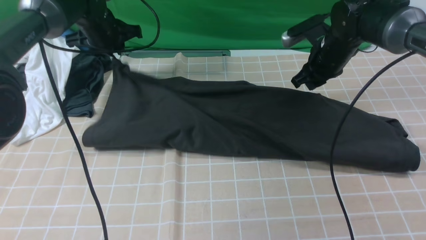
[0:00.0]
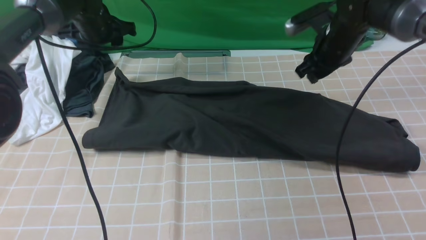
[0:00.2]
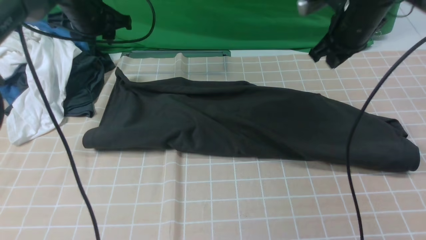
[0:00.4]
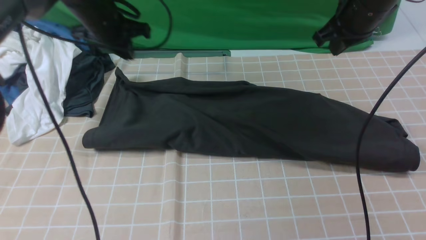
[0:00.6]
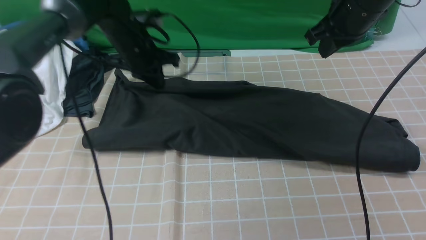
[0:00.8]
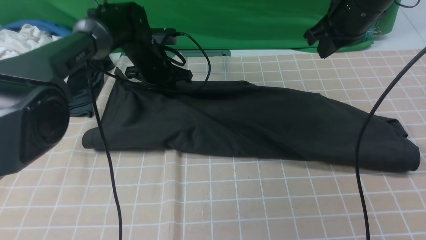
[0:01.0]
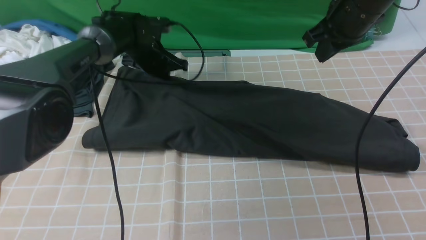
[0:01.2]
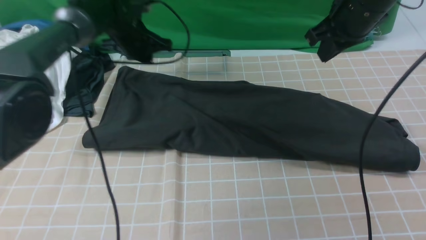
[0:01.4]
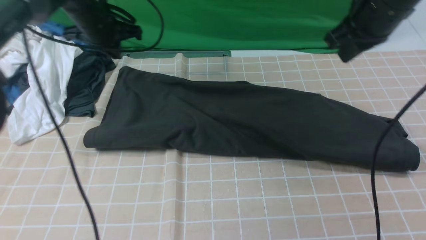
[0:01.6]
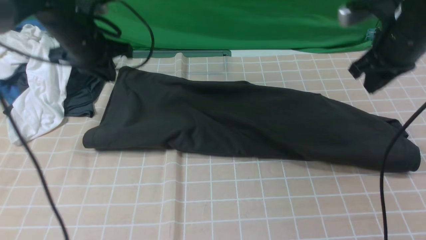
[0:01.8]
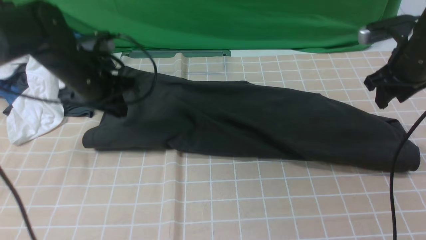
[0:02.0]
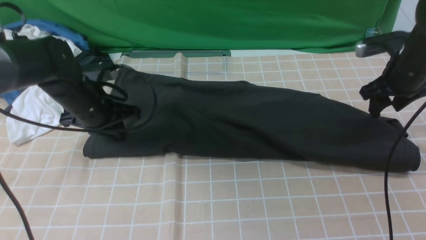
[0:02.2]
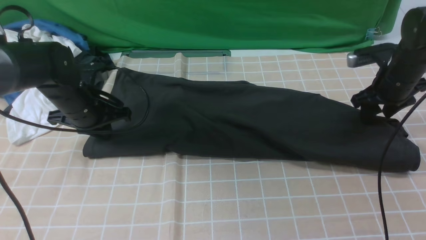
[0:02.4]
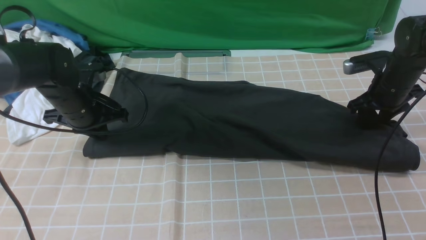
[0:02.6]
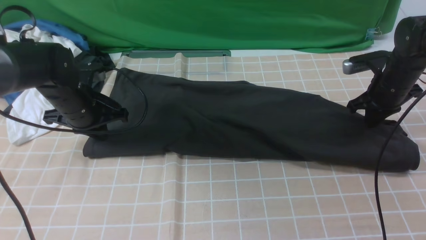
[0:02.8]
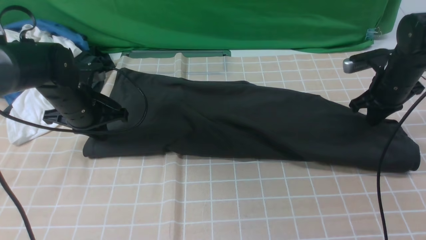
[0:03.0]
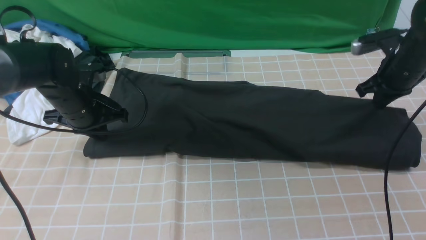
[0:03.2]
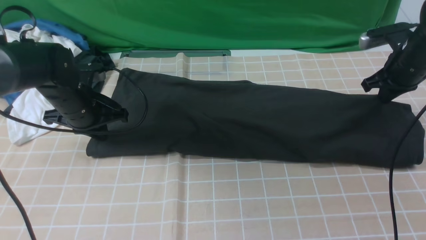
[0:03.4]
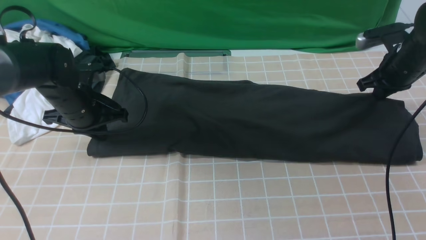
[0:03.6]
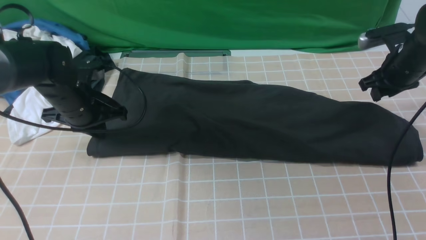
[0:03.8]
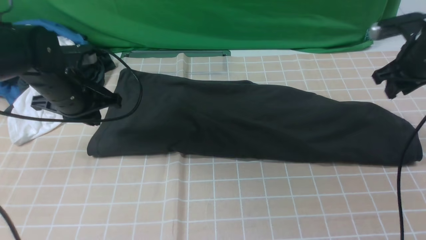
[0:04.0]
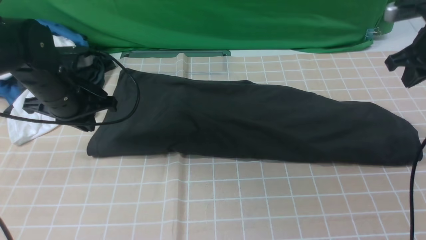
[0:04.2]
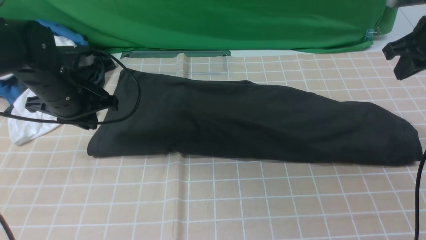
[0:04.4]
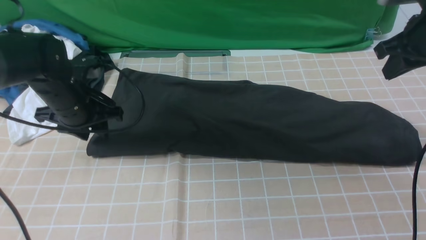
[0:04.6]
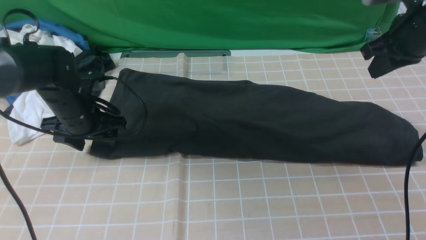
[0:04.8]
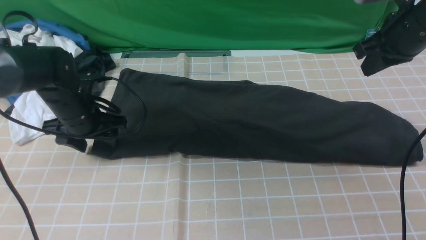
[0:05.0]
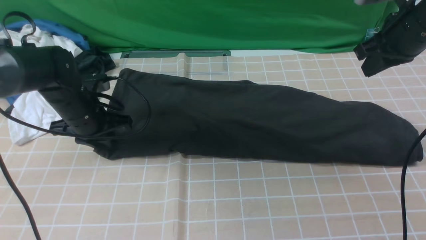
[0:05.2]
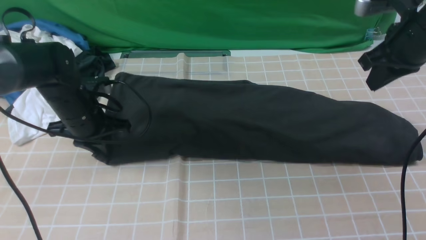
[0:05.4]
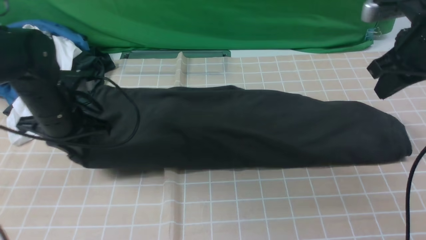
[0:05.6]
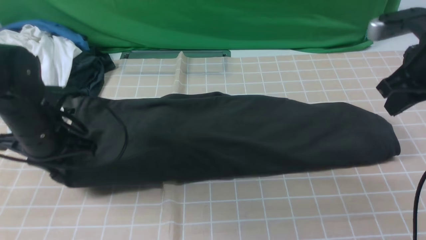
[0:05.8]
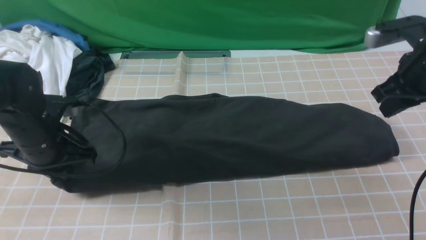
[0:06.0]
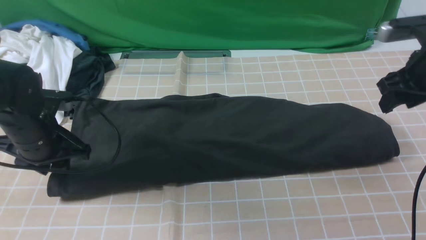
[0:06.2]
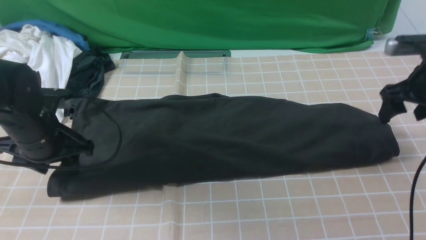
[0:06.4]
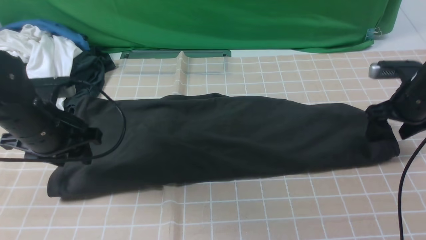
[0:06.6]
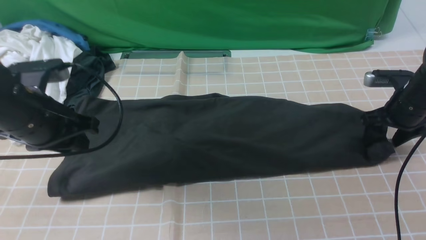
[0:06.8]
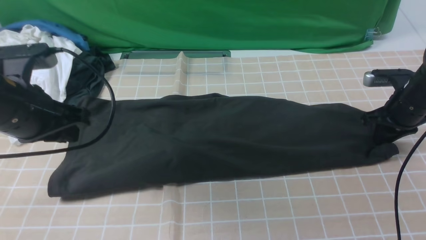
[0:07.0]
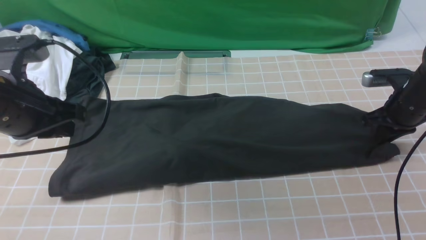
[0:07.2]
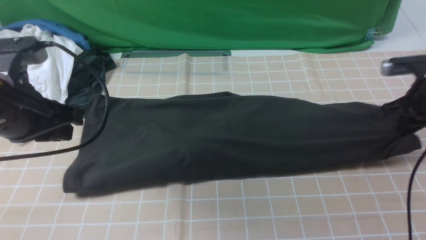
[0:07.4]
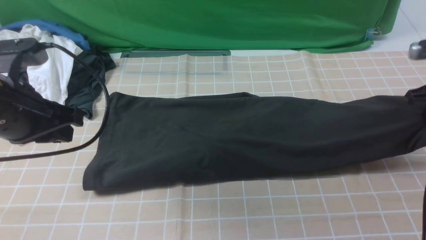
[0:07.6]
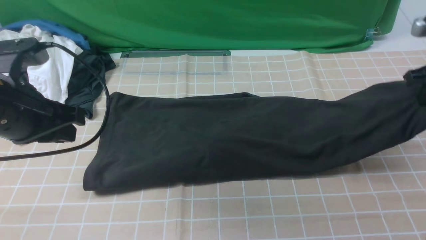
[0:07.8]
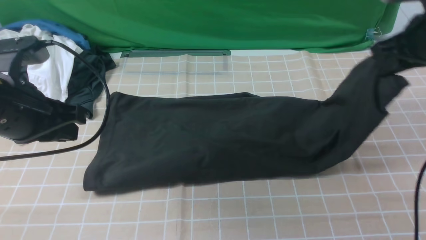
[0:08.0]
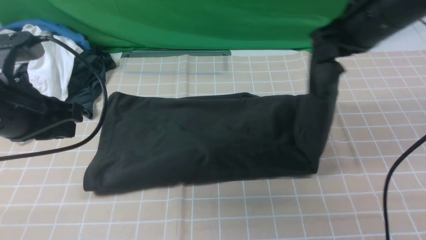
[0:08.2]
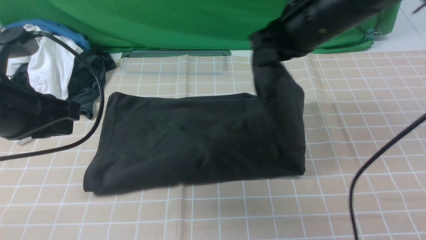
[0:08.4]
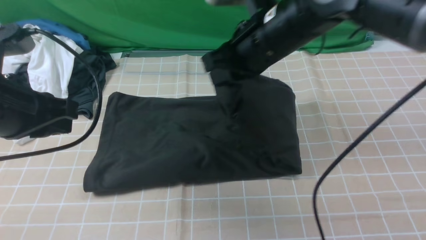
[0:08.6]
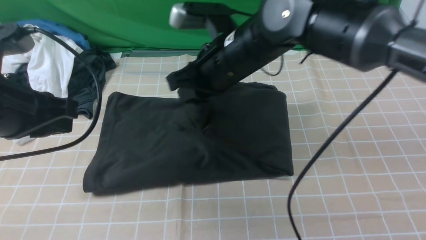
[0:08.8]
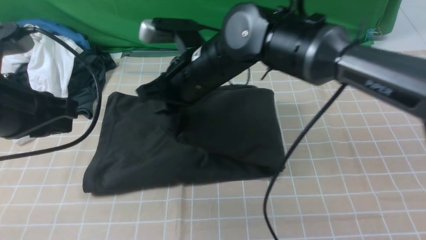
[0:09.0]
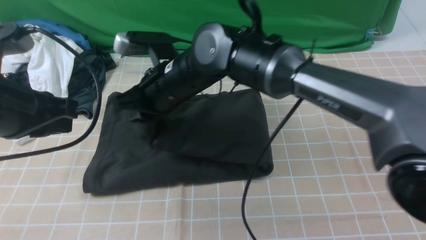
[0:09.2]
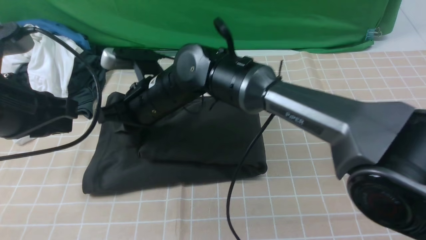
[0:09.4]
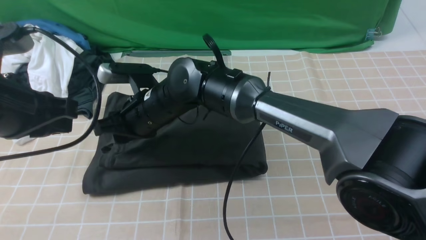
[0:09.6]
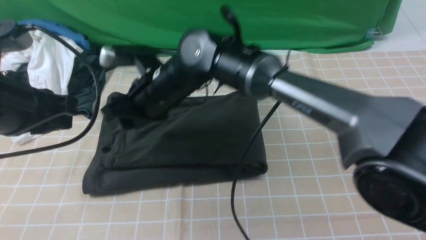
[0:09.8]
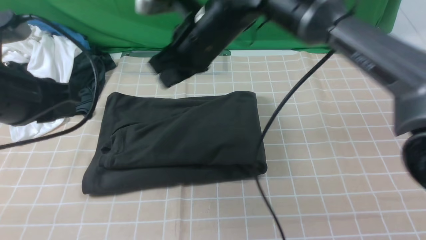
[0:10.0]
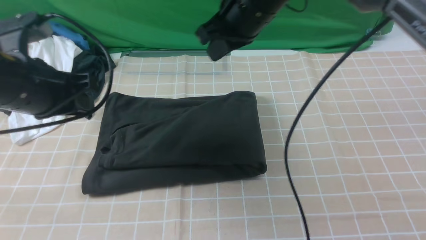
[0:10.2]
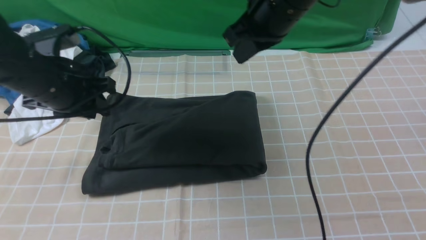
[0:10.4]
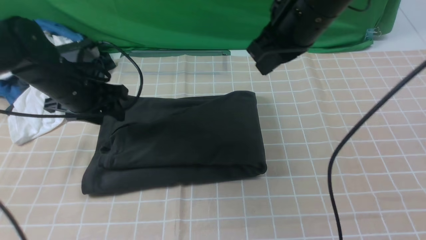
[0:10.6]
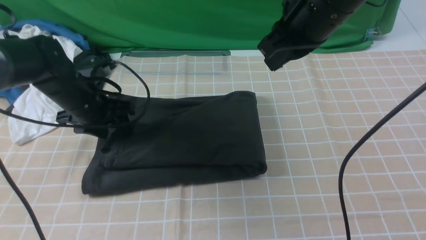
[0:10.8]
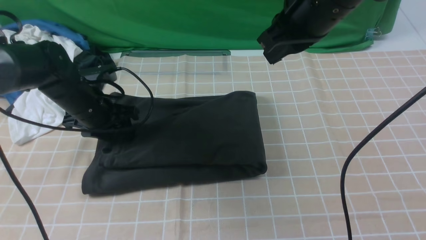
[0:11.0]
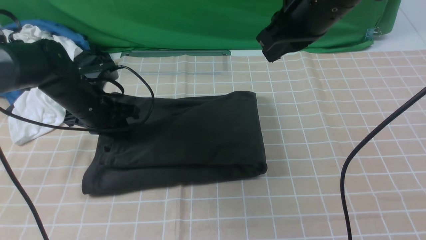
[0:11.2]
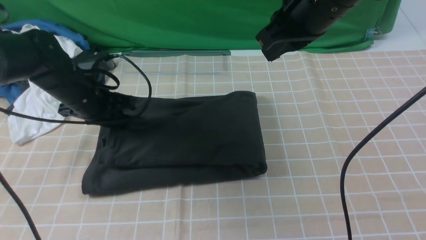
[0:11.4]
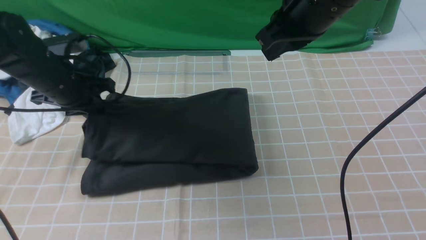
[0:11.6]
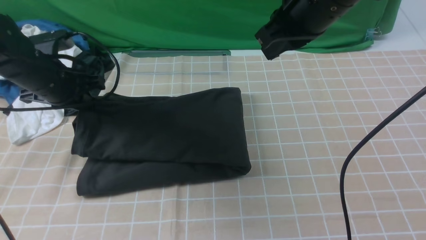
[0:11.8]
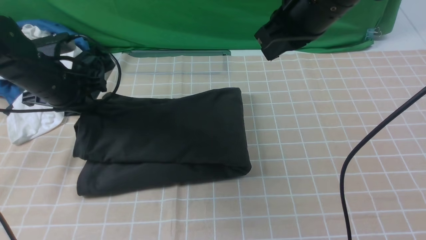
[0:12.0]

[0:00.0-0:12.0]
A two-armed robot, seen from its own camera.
Step, 0:00.2 to 0:07.0: use the right arm to clamp the right edge of the fabric.
Step, 0:07.4 to 0:09.6: use the right arm to drag the right edge of the fabric to the left and folds it over the left edge.
0:00.0 to 0:01.6: The left gripper goes downward and returns, roughly 5 cm each way, and closes its fingers, while the right gripper travels upward and backward by roughly 15 cm.
0:01.6 to 0:03.0: The right gripper goes some 15 cm downward and to the right, and opens and closes again. Meanwhile the left gripper moves backward and downward, some 15 cm.
0:03.0 to 0:04.4: The right gripper is displaced upward by approximately 10 cm, and opens and closes again.
0:04.4 to 0:06.0: The left gripper shifts some 5 cm backward, and opens, then closes once more; the right gripper moves approximately 5 cm, and opens.
0:06.0 to 0:07.6: The right gripper is displaced to the right by roughly 5 cm, moves about 15 cm downward and comes back, and opens and closes again; the left gripper heads upward and backward, covering approximately 10 cm, and opens, then closes again.
0:07.6 to 0:09.0: The right gripper moves to the left, approximately 40 cm.
0:09.0 to 0:10.4: The left gripper shifts roughly 10 cm forward and downward, and opens up; the right gripper goes approximately 15 cm to the right and upward, and opens, then closes again.
0:10.4 to 0:12.0: The right gripper ends up approximately 5 cm from where it was. The left gripper ends up approximately 5 cm from where it was, and closes its fingers.

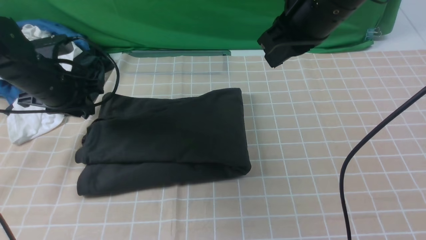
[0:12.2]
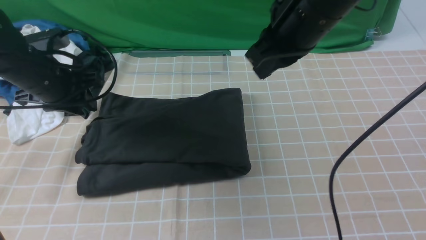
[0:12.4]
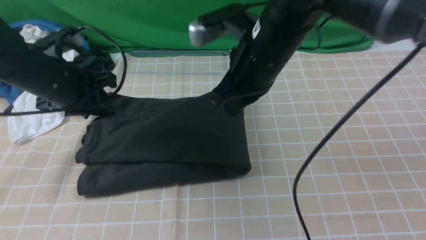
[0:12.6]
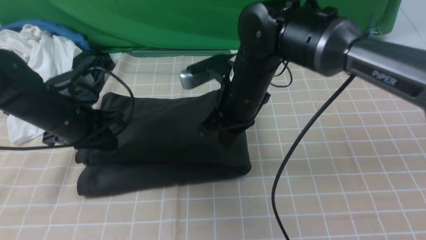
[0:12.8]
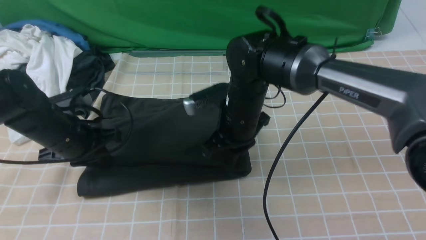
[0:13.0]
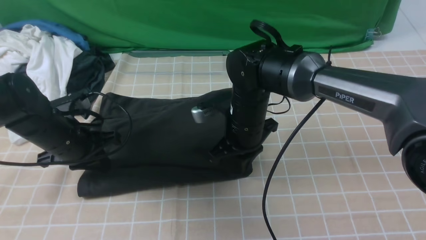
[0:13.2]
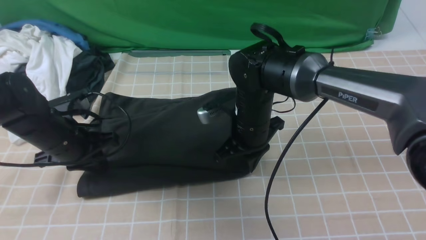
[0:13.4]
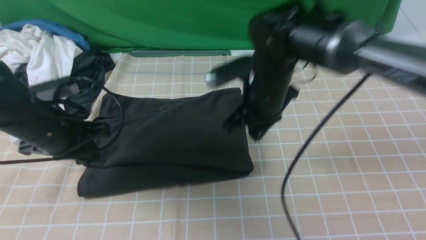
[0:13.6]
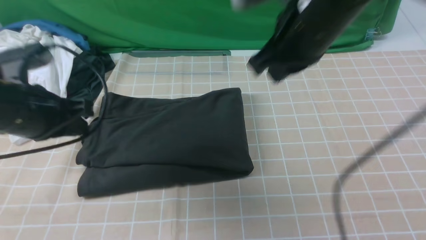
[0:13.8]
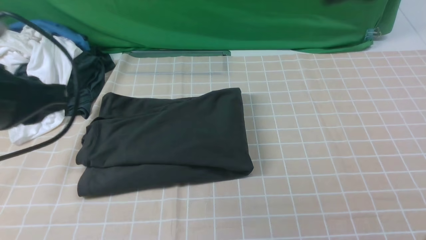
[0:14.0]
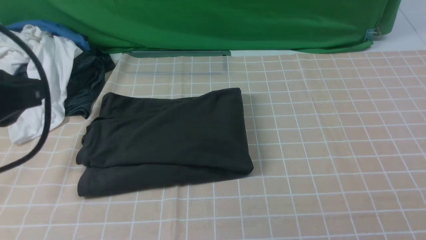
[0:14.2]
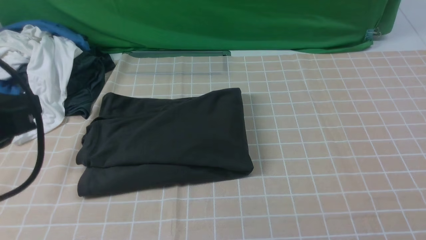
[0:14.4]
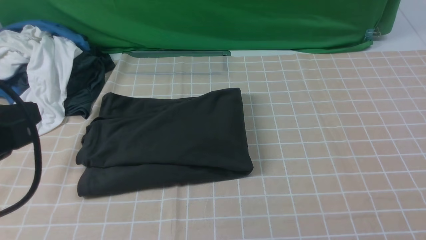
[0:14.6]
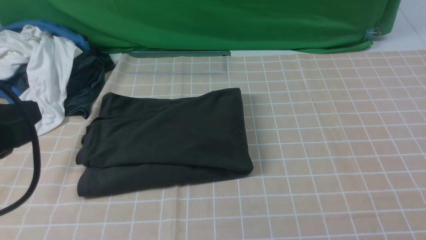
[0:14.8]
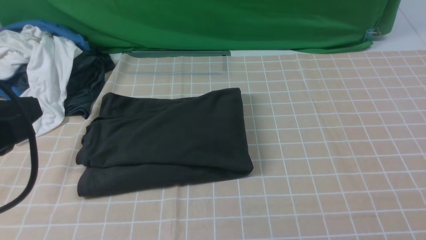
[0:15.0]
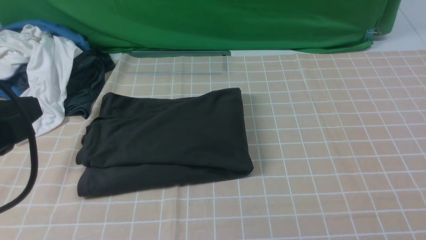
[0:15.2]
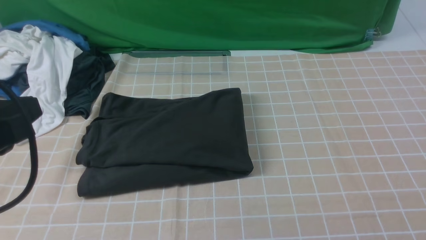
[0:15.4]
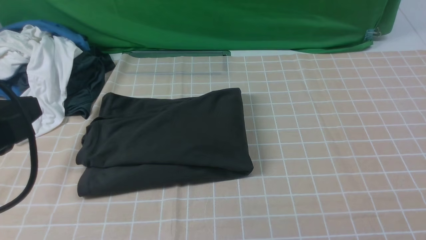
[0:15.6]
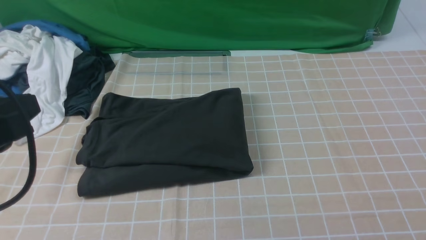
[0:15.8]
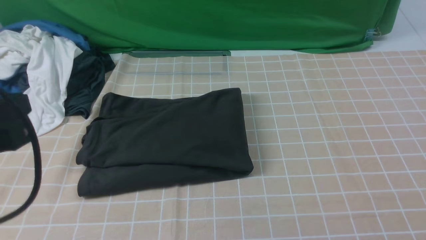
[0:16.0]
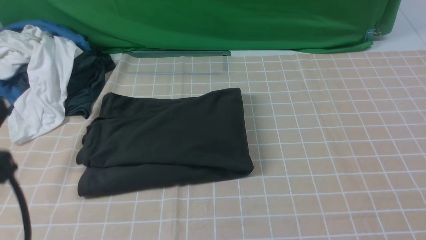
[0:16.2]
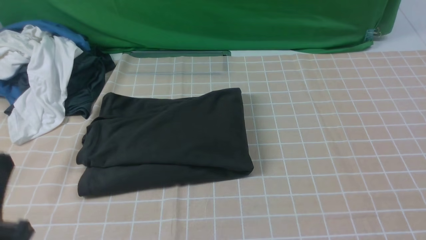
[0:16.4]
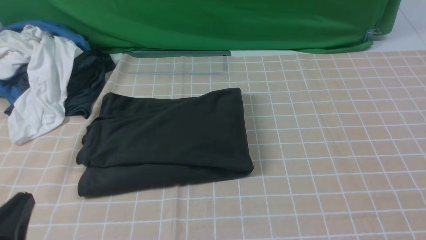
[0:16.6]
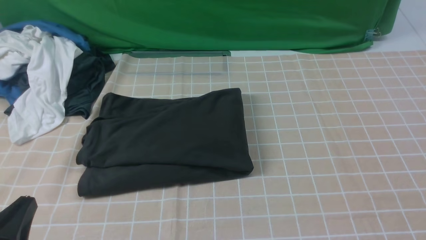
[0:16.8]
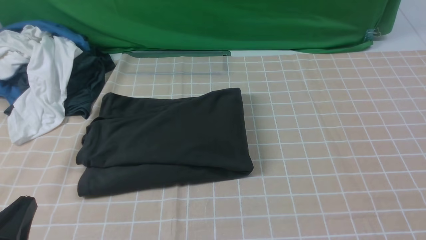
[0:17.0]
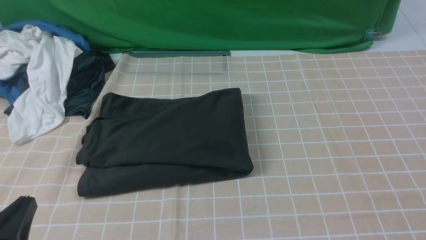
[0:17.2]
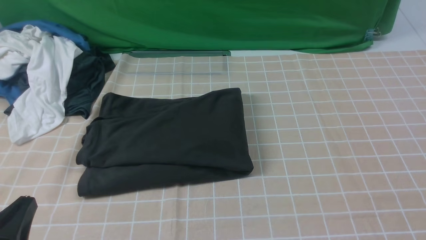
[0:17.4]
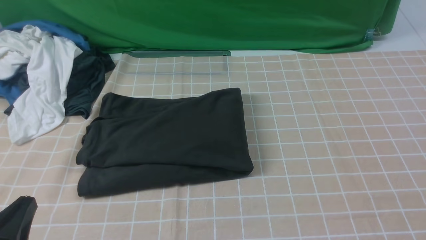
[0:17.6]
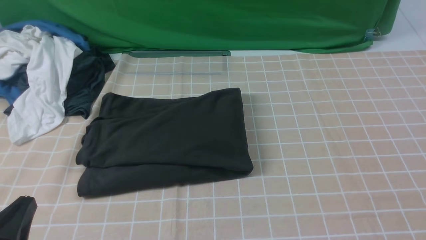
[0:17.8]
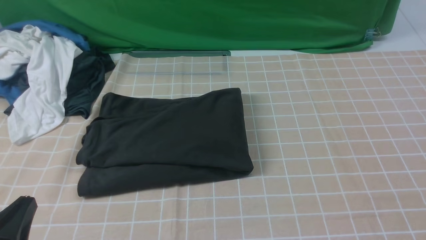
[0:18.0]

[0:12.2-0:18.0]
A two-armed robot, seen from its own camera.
0:12.2 to 0:13.6: The left gripper goes some 10 cm backward, and closes; the right gripper travels downward by about 10 cm.
0:13.6 to 0:15.0: The right gripper moves backward and to the right, approximately 40 cm, while the left gripper heads backward and upward, covering roughly 20 cm.
0:15.0 to 0:16.6: The left gripper goes roughly 15 cm downward and backward.
